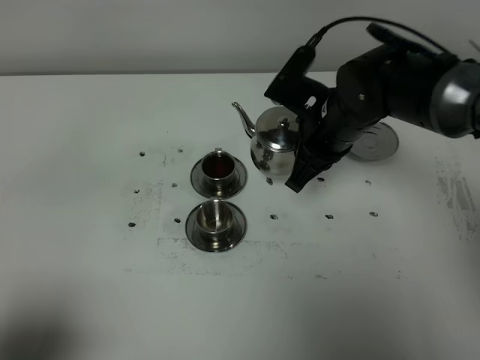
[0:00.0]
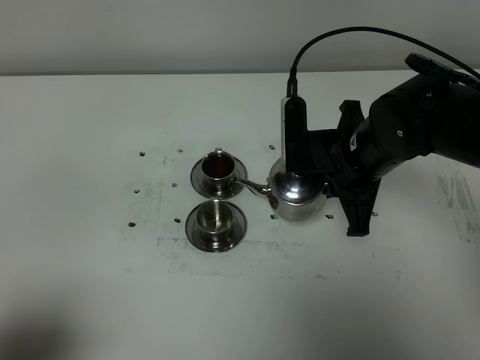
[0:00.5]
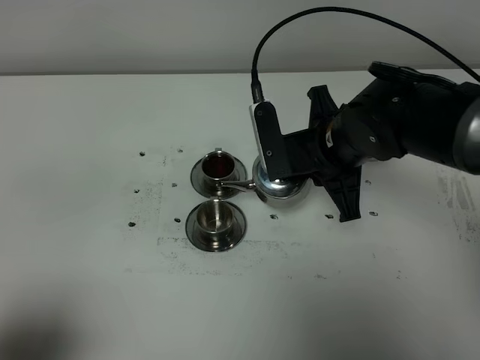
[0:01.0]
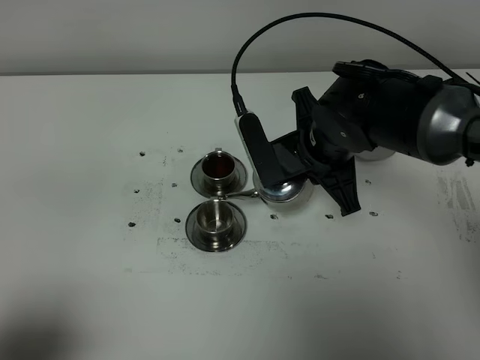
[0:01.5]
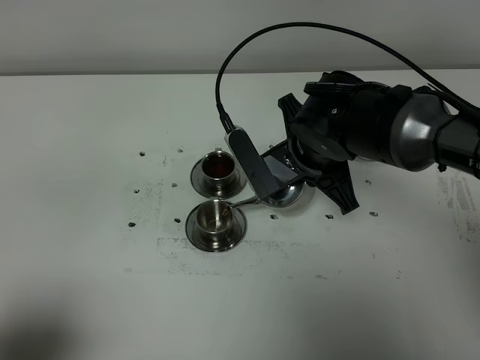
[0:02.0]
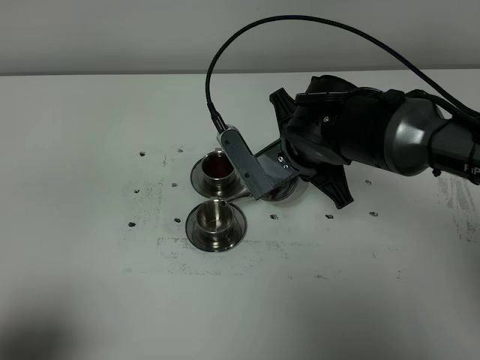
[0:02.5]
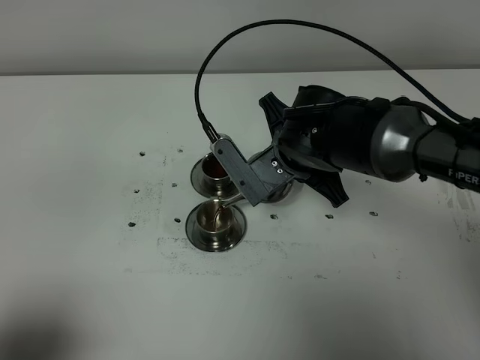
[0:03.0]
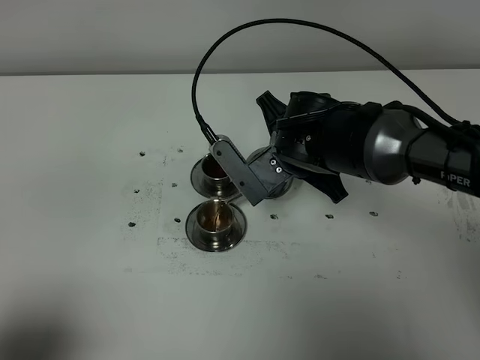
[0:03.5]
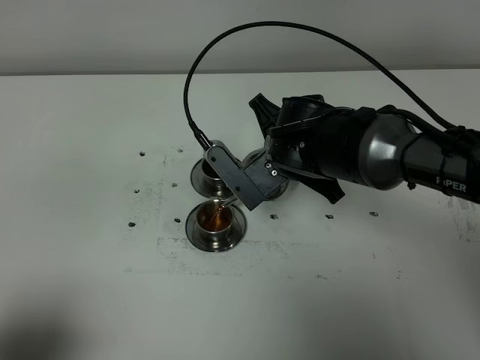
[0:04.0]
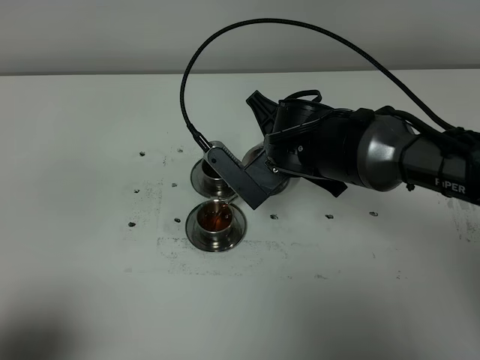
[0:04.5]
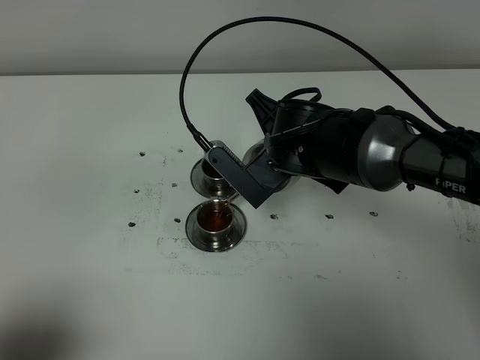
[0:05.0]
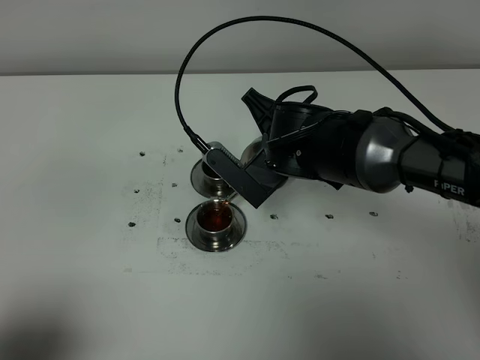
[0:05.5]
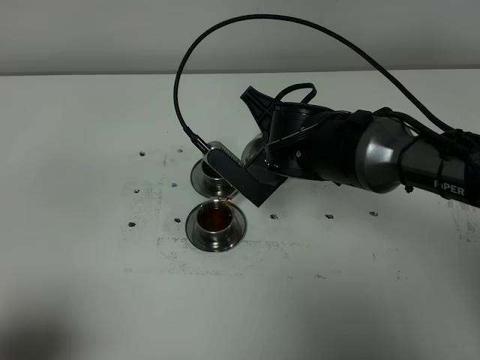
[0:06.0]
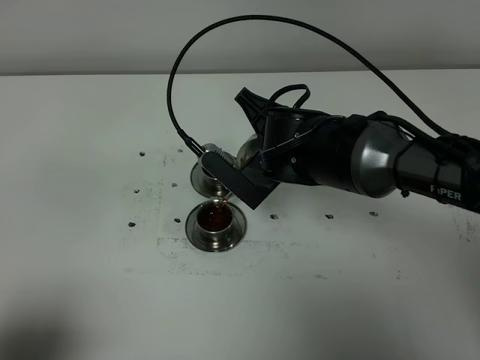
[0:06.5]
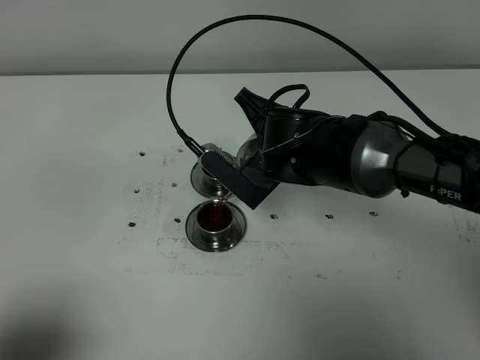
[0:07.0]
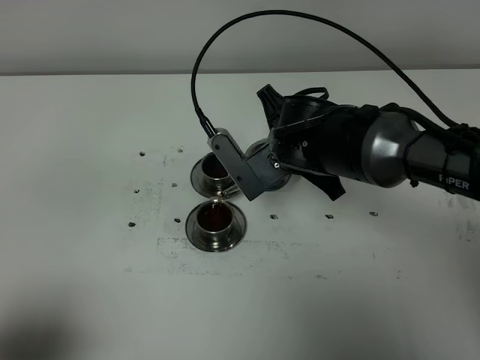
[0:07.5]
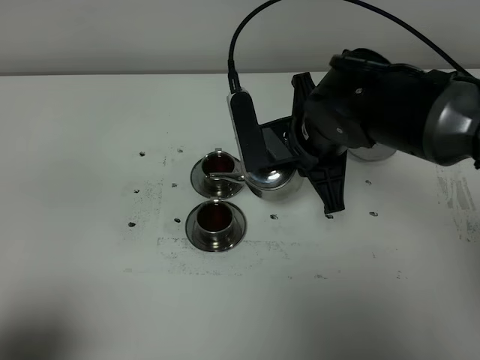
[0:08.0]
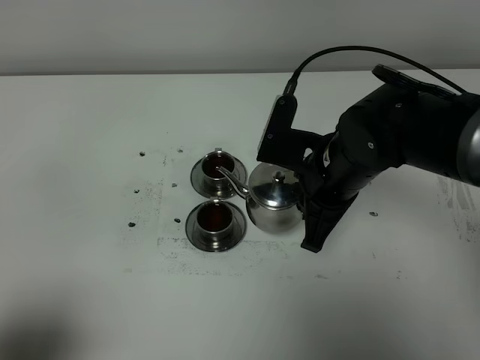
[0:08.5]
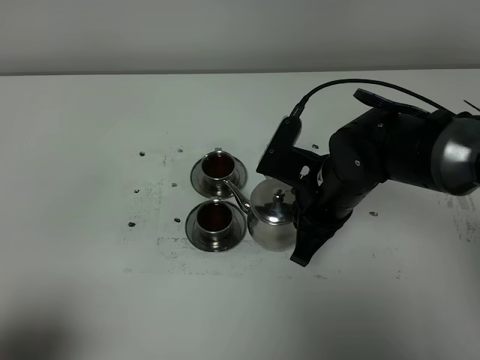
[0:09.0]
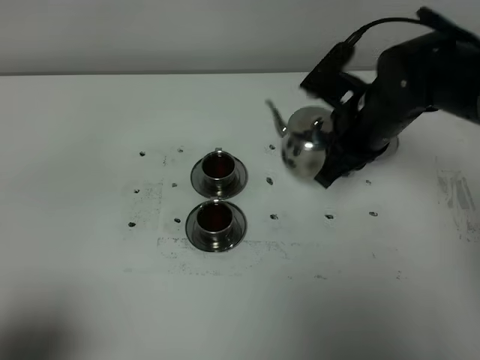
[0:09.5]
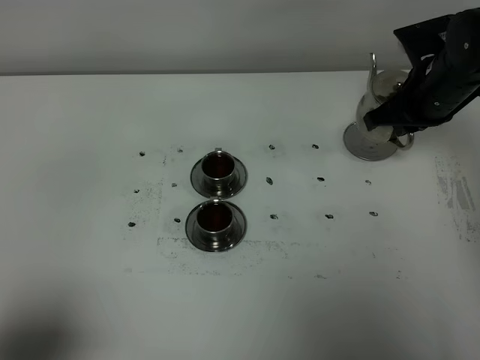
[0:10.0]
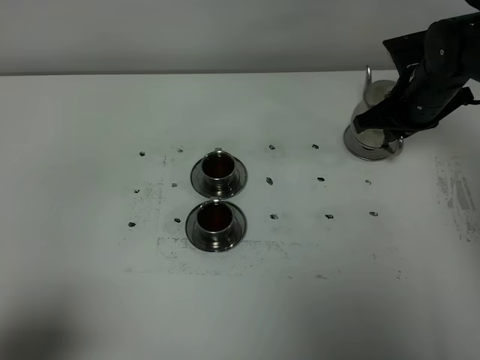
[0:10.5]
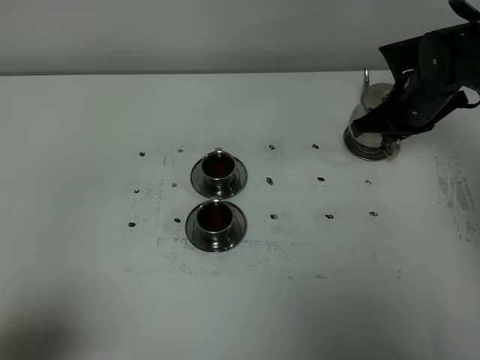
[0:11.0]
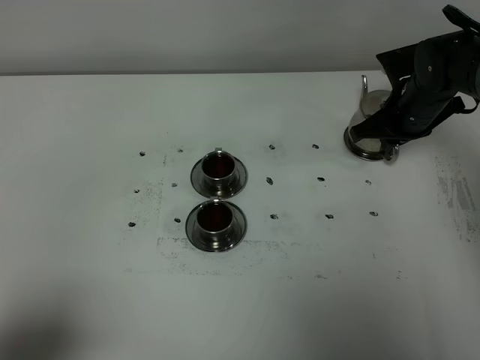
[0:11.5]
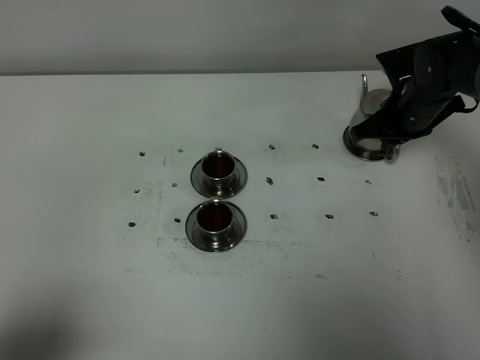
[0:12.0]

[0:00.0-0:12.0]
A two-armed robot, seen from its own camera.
Task of the whole recording: grasp the stainless steel teapot and pour the tea into the two stainless steel teacups one by one, put the stainless steel teapot back in its original place.
Step, 0:00.0 to 0:07.5: Pour tea into the teacup with the right gripper.
0:02.0 to 0:04.0: The grippers make only small movements.
0:04.0 to 0:06.0: There are only small adjustments of the grippers.
0:06.0 to 0:08.0: The right gripper shifts by about 5 cm.
0:08.0 to 0:10.0: The right gripper shifts some 20 cm to the right and forward.
0:10.0 to 0:12.0: The right gripper moves downward, roughly 5 cm.

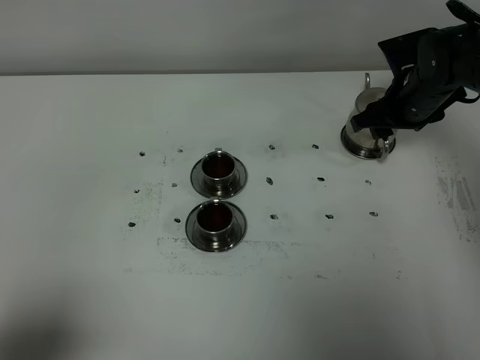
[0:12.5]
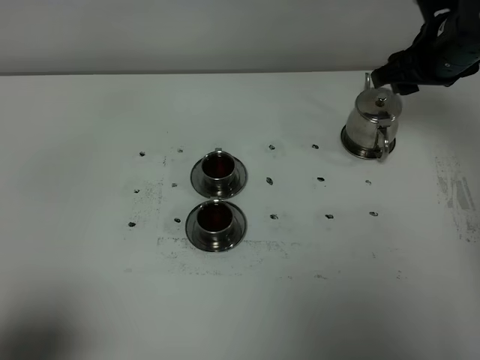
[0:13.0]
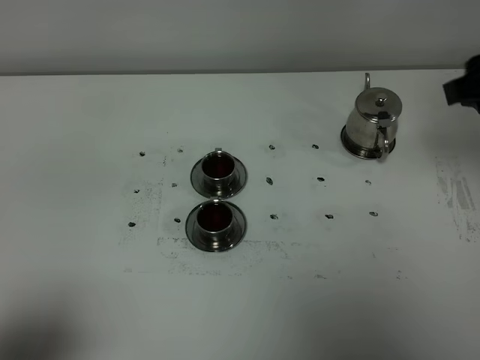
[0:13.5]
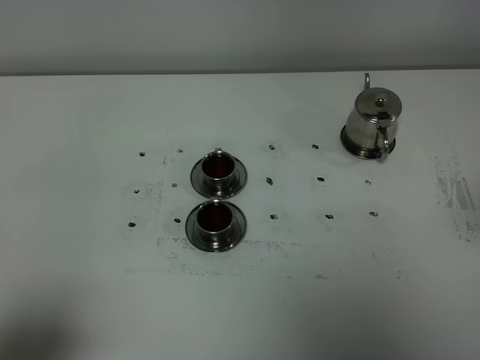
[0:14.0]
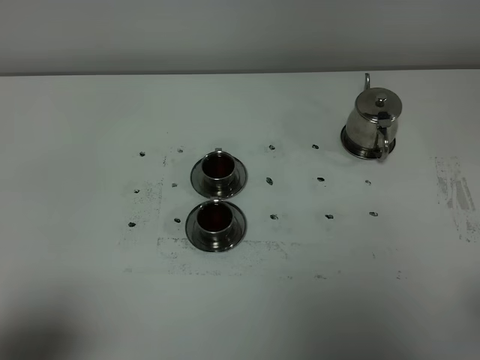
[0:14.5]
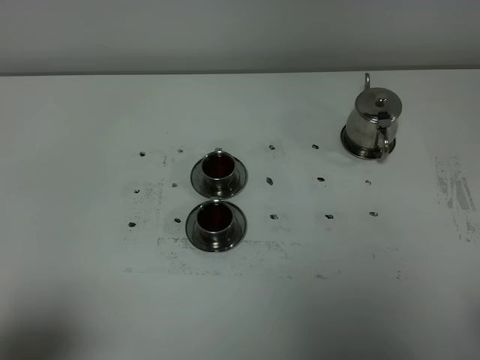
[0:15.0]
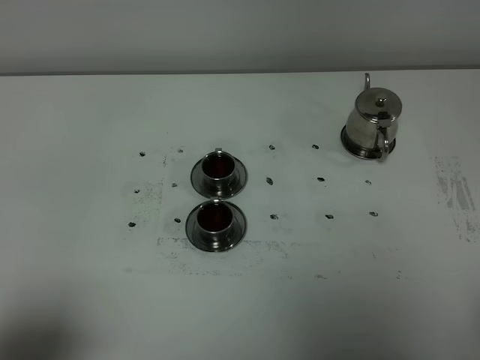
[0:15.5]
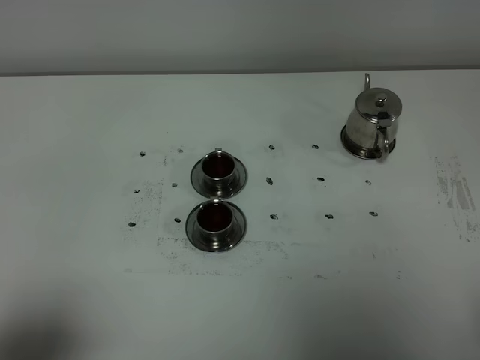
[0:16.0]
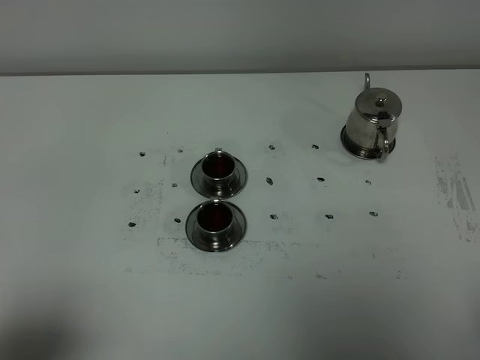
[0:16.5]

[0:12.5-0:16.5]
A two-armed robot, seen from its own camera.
Task of the whole recording: grasp the stainless steel teapot and pour the tea into the two stainless steel teacups one by one, put the stainless steel teapot back in its original place.
0:12.5 to 0:14.5: The right gripper travels backward by approximately 40 cm.

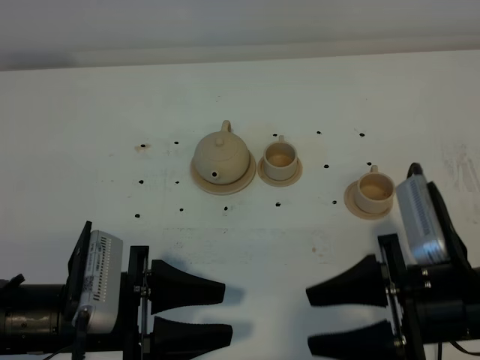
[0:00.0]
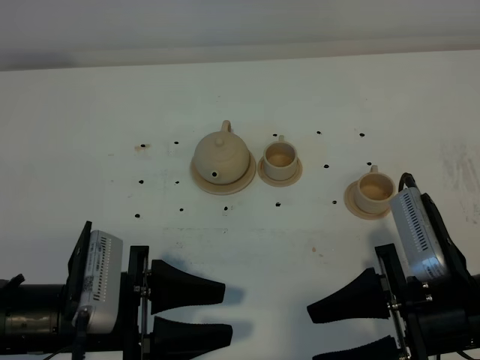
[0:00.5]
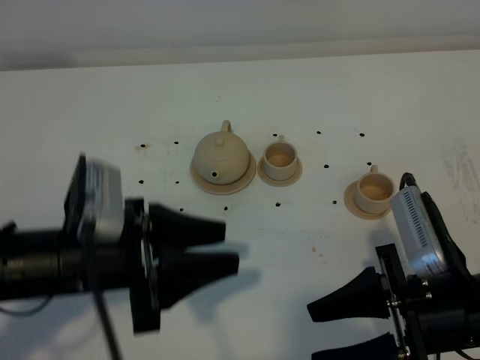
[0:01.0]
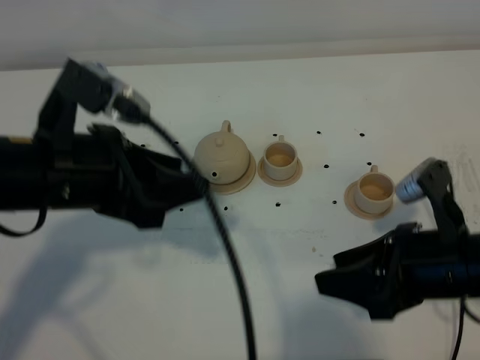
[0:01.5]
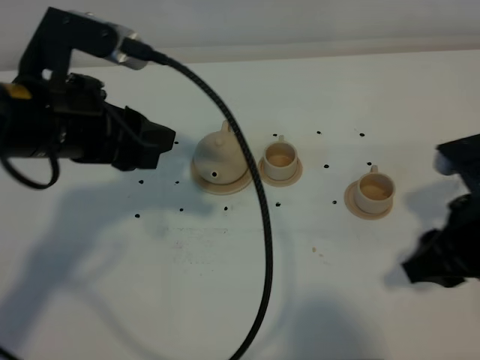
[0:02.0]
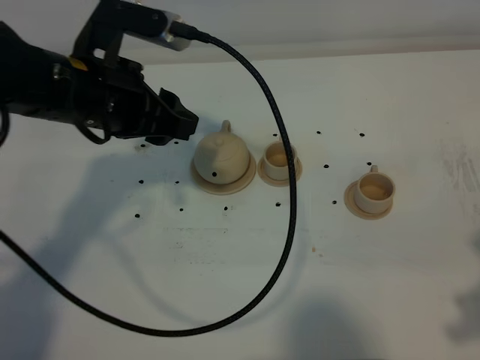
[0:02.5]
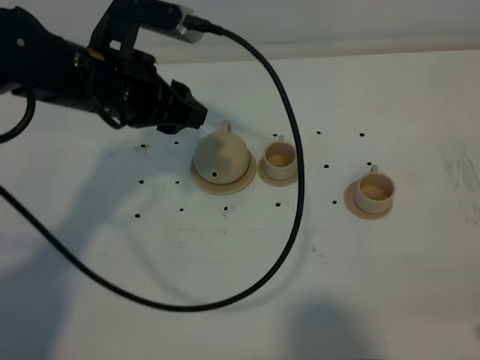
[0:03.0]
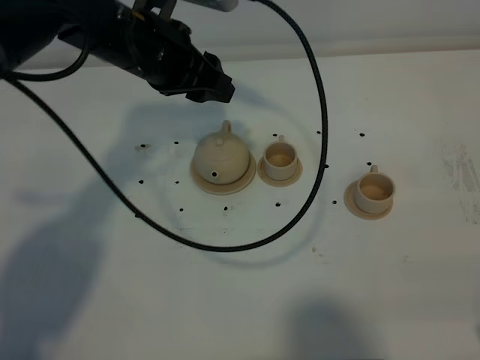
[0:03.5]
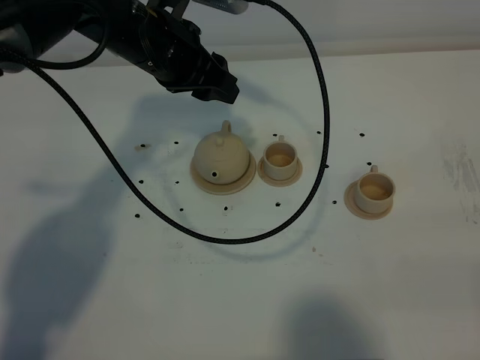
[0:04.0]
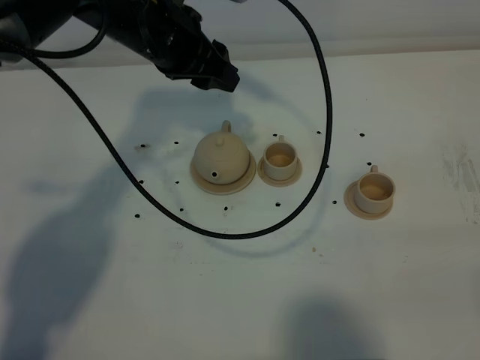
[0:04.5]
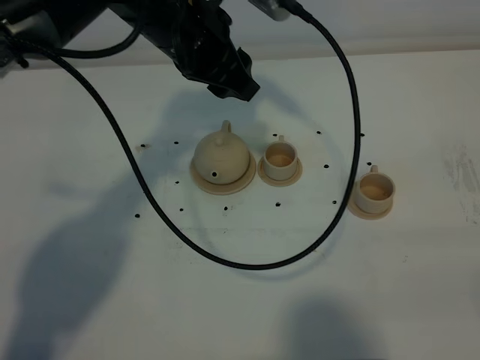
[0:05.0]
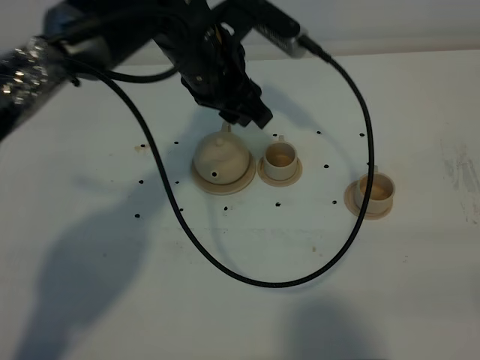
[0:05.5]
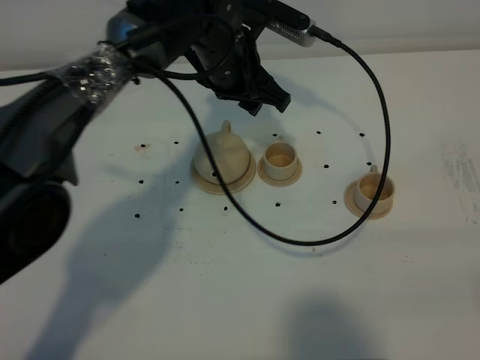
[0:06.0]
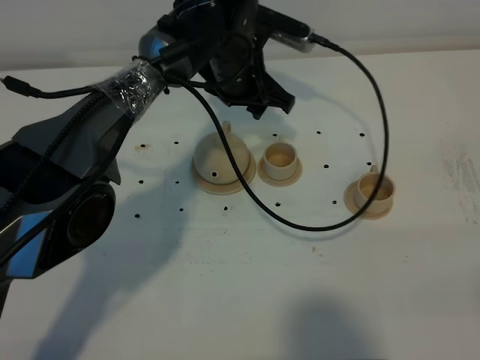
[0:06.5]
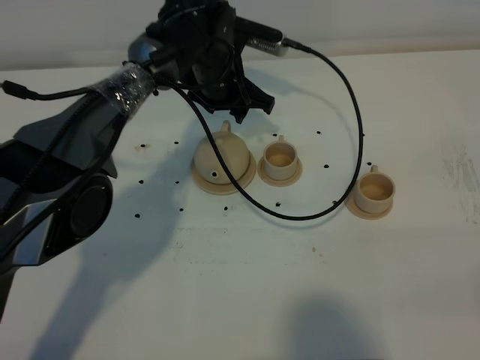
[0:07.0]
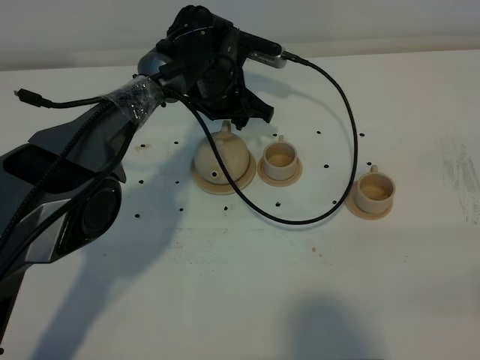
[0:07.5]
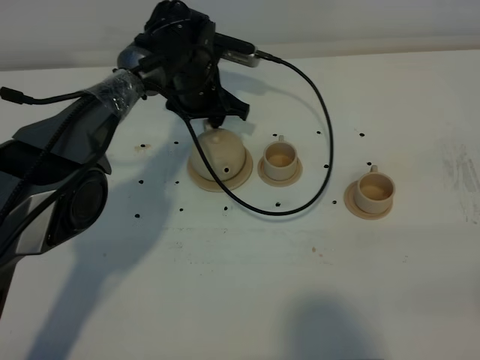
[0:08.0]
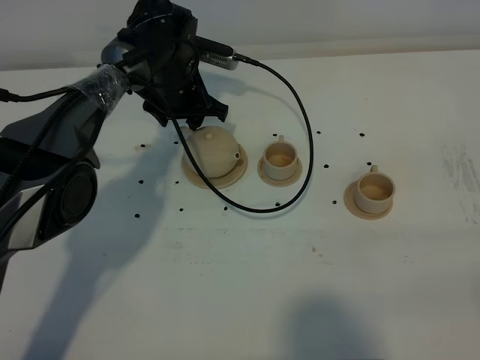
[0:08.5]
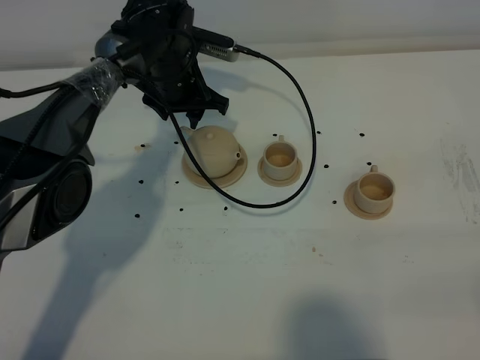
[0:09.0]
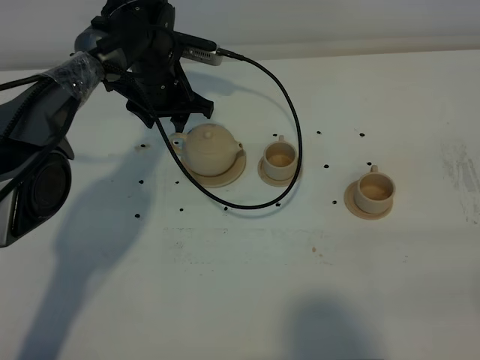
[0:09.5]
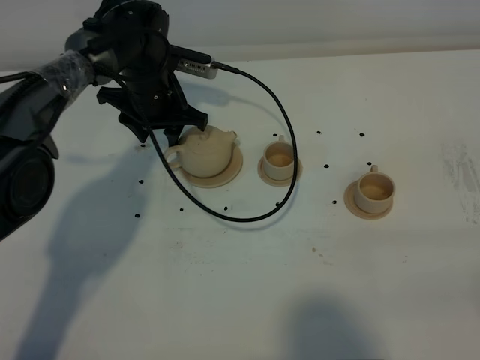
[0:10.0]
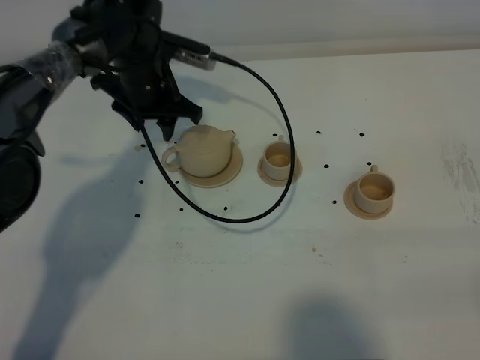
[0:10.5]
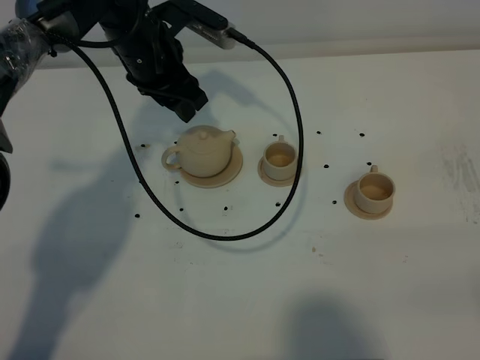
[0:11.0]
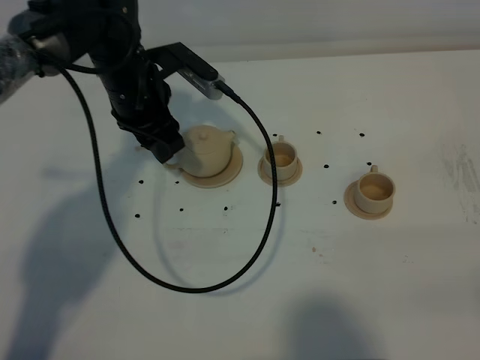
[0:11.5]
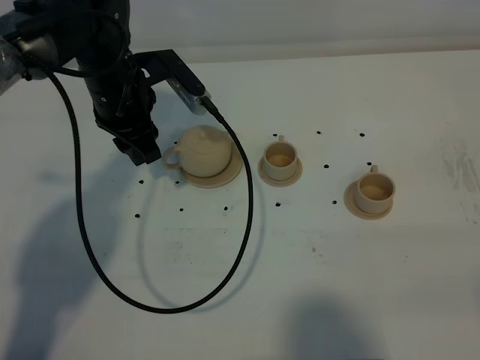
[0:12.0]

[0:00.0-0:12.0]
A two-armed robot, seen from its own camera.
Task of the whole recording: grasp the brown teapot and pour the tea into the two brown teacups one by one, put the brown teapot back in its original place.
0:00.0 to 0:02.0: The right gripper goes approximately 5 cm forward, and closes its fingers, while the left gripper travels upward and forward by some 20 cm.
0:02.0 to 0:04.0: The left gripper goes some 15 cm forward and to the right, while the right gripper shifts roughly 20 cm backward and to the right.
0:04.0 to 0:06.0: The left gripper shifts some 10 cm to the right.
0:06.0 to 0:08.0: The left gripper travels downward, forward and to the left by some 15 cm.
0:08.0 to 0:10.0: The left gripper heads to the left, covering about 5 cm.
0:10.0 to 0:12.0: The left gripper moves backward and upward, roughly 10 cm.
